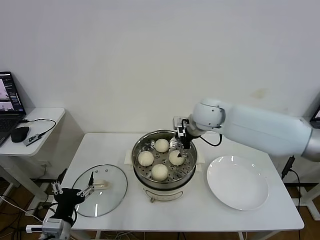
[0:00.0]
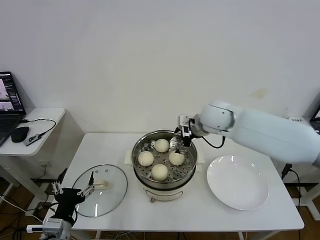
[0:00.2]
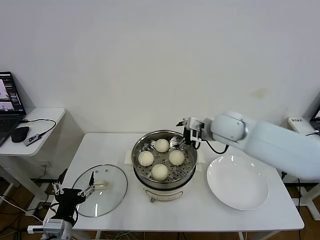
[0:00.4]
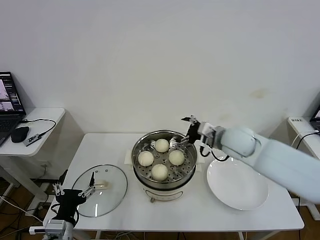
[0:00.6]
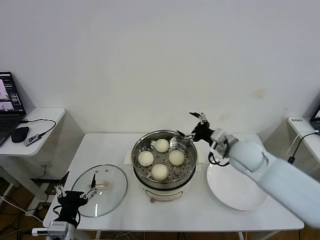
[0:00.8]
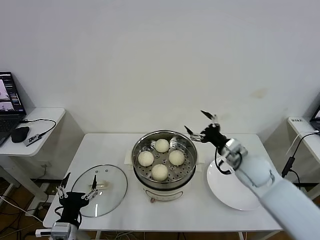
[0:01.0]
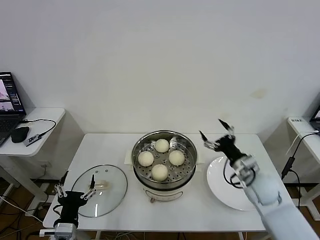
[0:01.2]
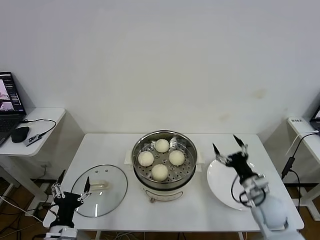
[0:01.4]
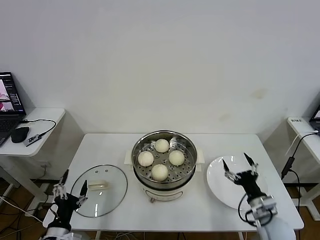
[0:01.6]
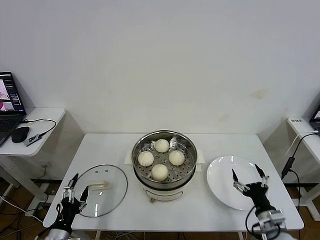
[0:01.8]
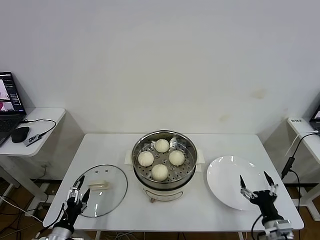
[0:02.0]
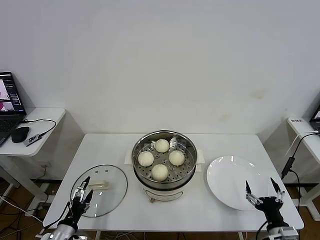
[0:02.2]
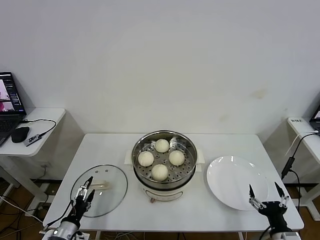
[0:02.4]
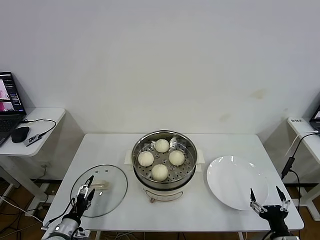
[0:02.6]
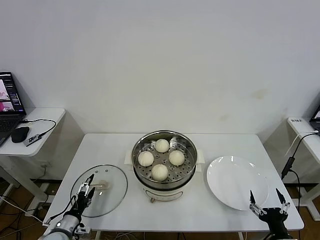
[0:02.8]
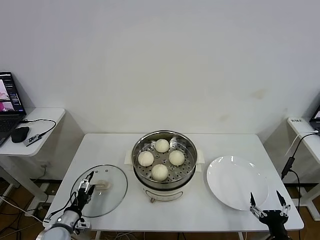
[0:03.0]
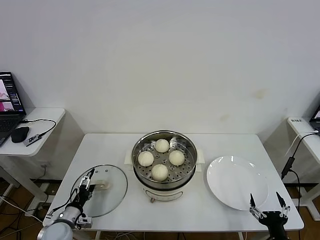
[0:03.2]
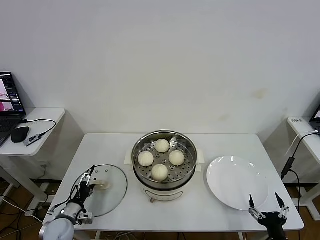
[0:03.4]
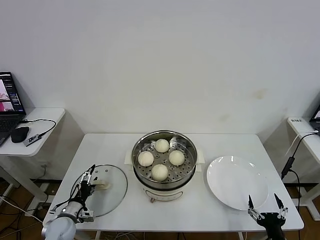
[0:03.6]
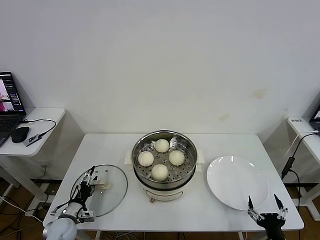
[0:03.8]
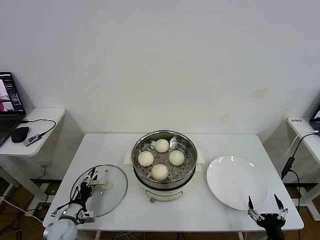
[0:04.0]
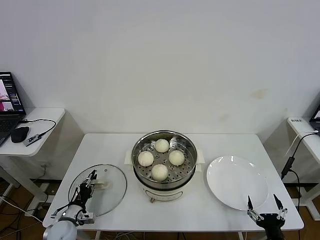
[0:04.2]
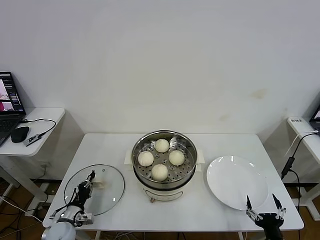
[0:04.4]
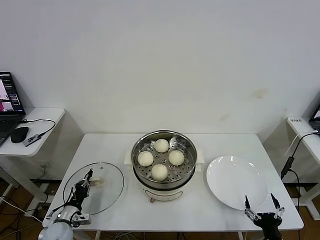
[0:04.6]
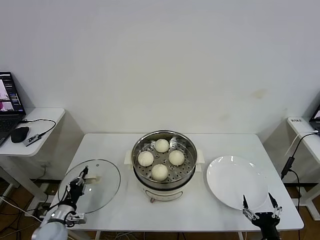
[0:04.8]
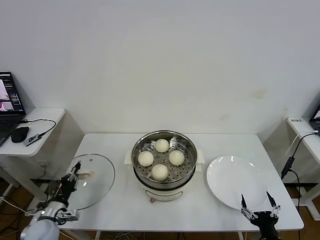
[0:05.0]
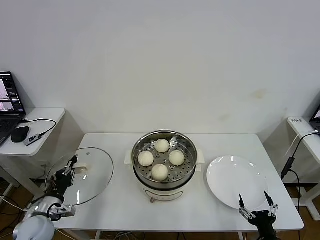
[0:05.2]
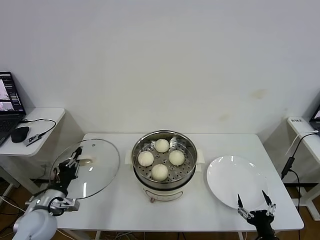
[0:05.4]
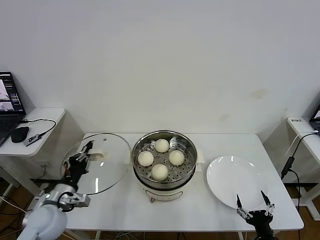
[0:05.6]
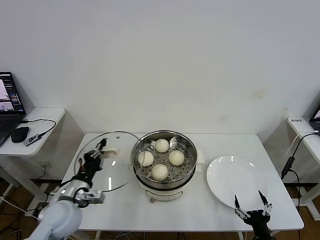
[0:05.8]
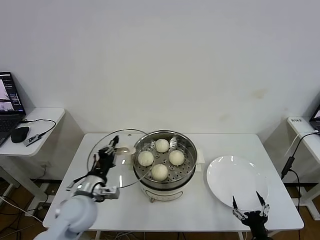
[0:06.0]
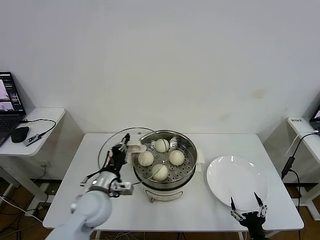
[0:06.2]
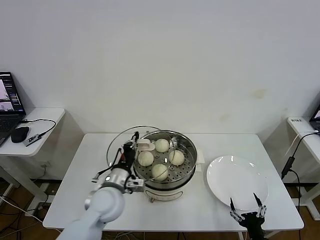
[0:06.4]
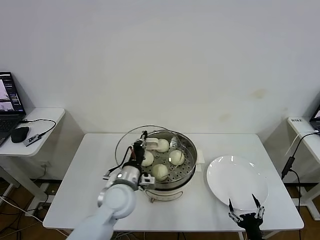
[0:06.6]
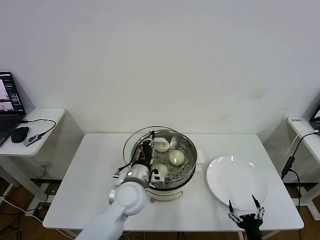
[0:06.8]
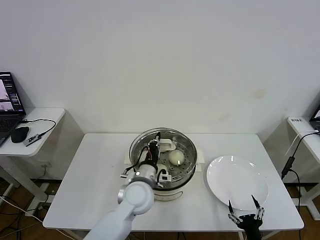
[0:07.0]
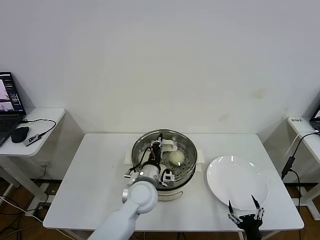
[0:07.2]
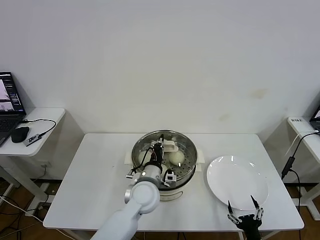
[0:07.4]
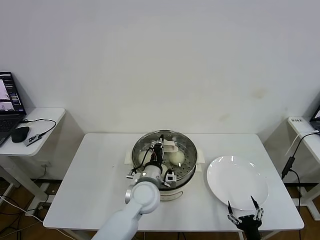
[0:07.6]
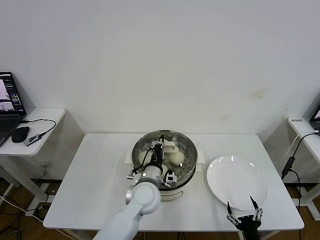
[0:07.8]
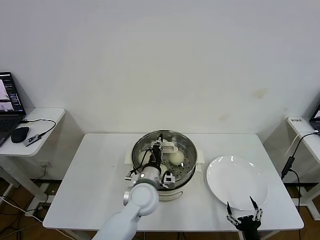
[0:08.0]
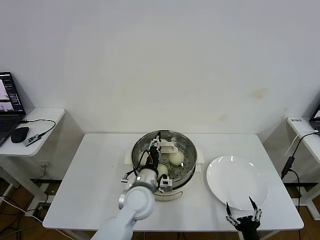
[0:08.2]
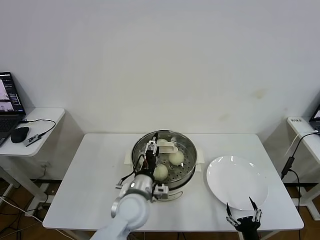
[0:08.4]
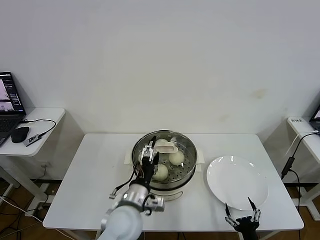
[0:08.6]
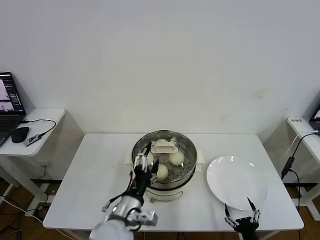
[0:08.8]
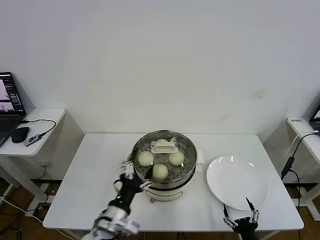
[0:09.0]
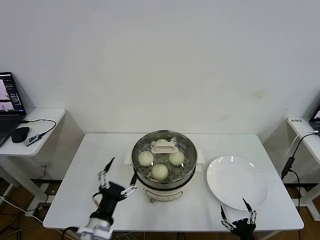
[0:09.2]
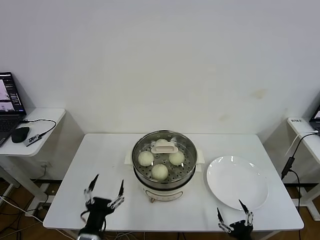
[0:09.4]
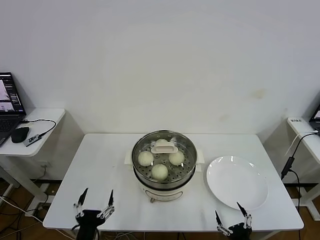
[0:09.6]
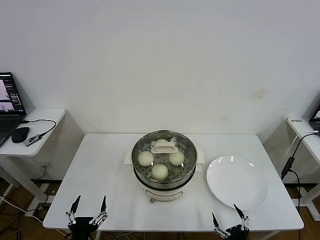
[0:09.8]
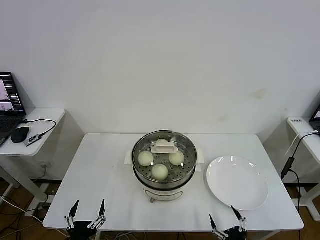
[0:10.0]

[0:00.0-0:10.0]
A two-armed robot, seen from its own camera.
Task of the whole recording: take steamed baozi put them in steamer then cover it.
Step, 0:00.0 to 0:04.4: Grasp the pot lid with left gripper.
Step, 0:04.8 to 0:08.0: Place the pot lid on the steamer with left gripper.
0:00.0 to 0:01.4: The left gripper is displaced downward by some 5 cm. Meanwhile the right gripper is displaced backward, downward and to the right by roughly 35 cm.
0:01.4 to 0:02.8: The right gripper moves backward, some 20 cm, while the left gripper heads downward, to the left and forward, covering roughly 15 cm.
0:02.8 to 0:04.2: The left gripper is displaced forward by roughly 5 cm, and closes its fingers.
0:04.2 to 0:05.8: The left gripper shifts roughly 20 cm upward, and closes up.
0:05.8 to 0:07.2: The left gripper moves to the right, roughly 25 cm.
0:07.2 to 0:08.6: The left gripper shifts approximately 5 cm backward, and opens its fingers.
0:08.6 to 0:10.0: The left gripper moves backward, to the left and downward, about 25 cm.
